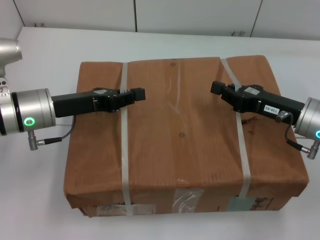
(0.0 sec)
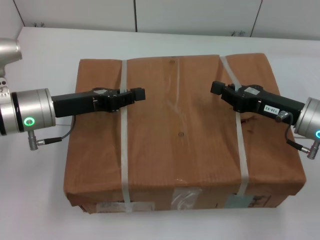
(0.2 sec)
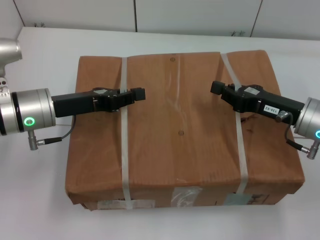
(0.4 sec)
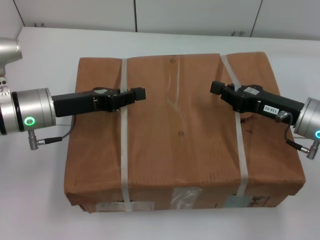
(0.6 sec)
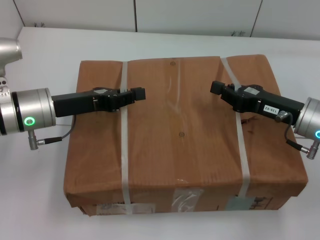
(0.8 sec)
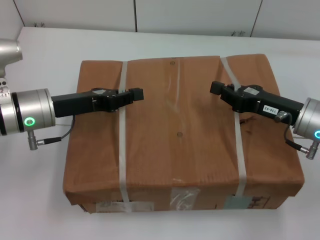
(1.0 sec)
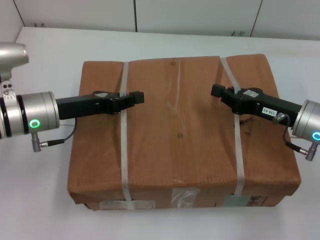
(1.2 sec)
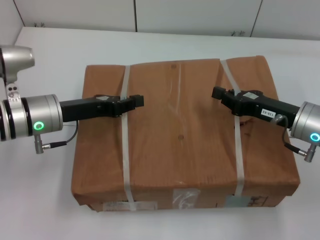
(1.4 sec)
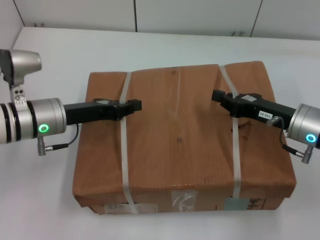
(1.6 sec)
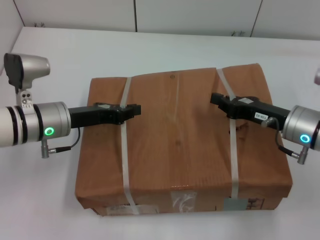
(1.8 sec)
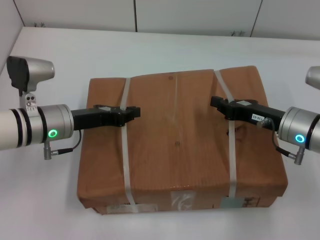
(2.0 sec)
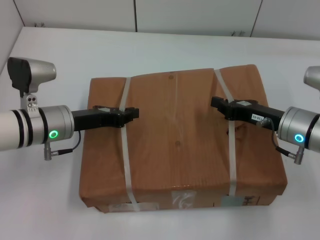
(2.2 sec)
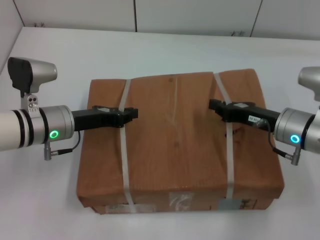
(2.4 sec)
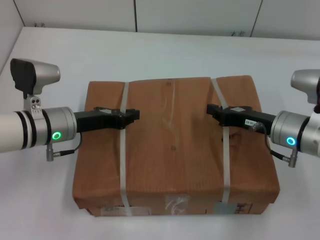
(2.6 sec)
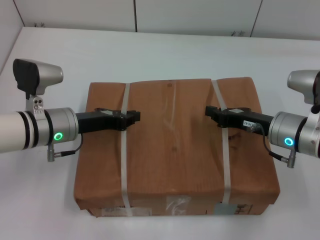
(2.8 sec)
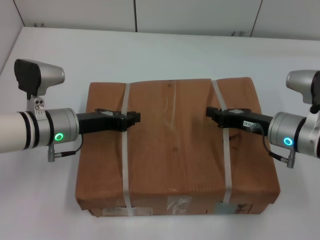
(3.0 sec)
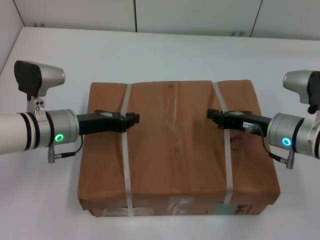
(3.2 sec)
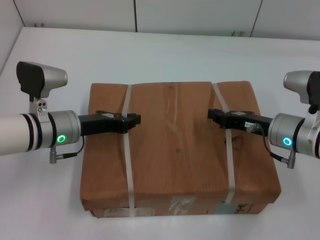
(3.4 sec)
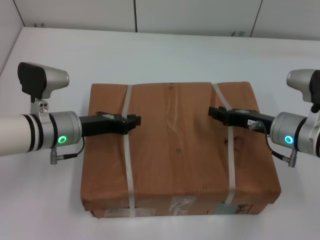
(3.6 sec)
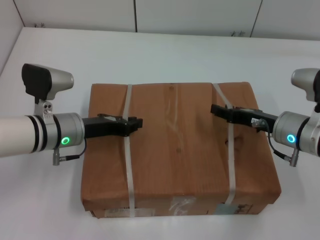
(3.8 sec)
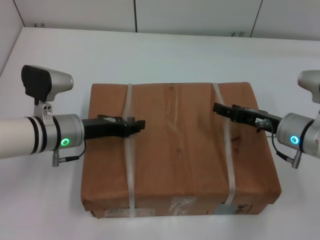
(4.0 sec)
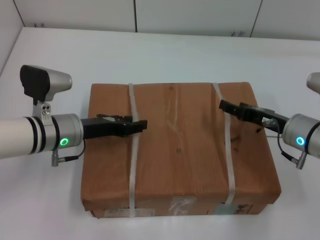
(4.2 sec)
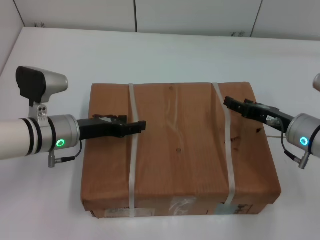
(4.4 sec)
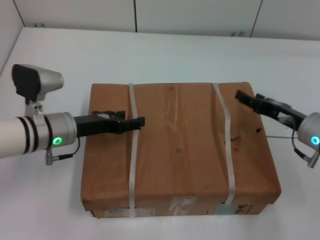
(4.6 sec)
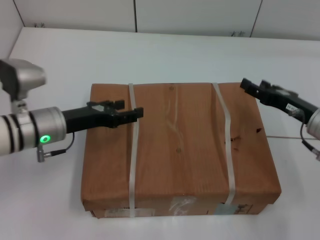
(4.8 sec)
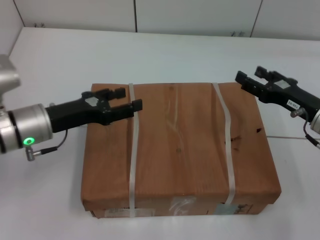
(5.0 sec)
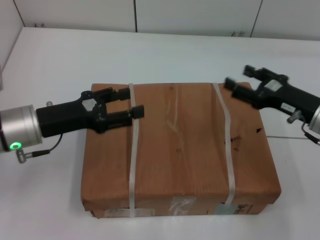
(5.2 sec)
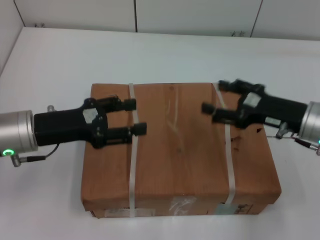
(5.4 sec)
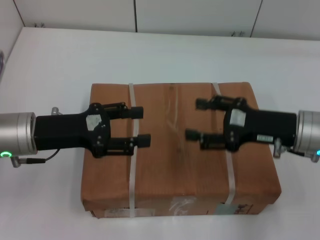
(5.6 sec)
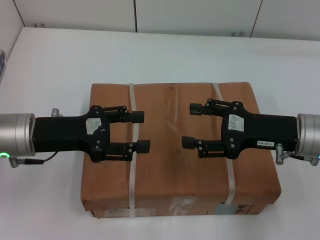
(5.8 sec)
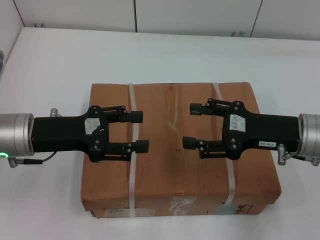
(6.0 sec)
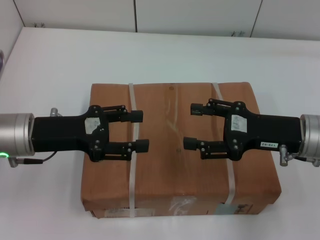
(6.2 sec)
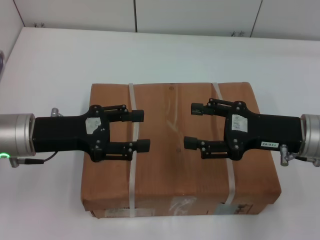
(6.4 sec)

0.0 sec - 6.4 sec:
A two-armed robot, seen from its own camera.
Task of the whole recording: place the box on the table with both arms.
Step, 0.0 sec - 3.4 sec: Place the box on the table with left gripper.
Step, 0.0 sec - 3.4 sec: Place the box on the table with right gripper.
Step, 3.6 sec - 4.2 sec: Loosen the box on the table with left gripper.
Step, 3.6 sec - 4.2 sec: Loosen the box on the table with right gripper.
3.2 sec - 4.8 sec: The right gripper heads to the right, covering approximately 5 cm, and opens, while the left gripper opens its fingers.
4.8 sec - 6.4 sec: The left gripper changes place by roughly 5 cm, while the right gripper heads upward, covering approximately 5 cm.
